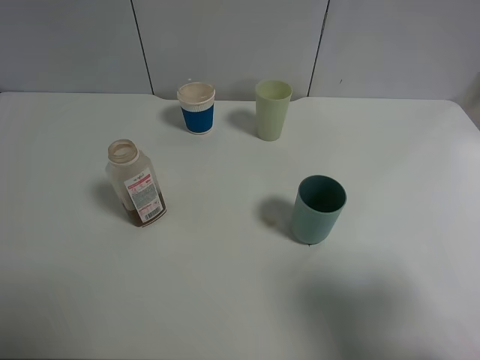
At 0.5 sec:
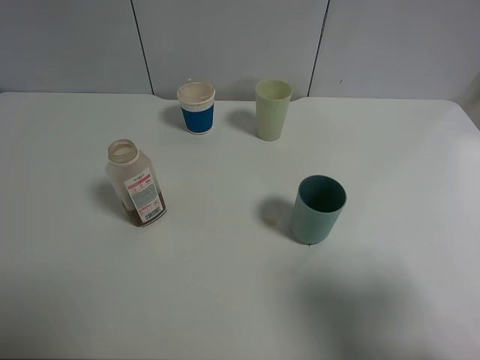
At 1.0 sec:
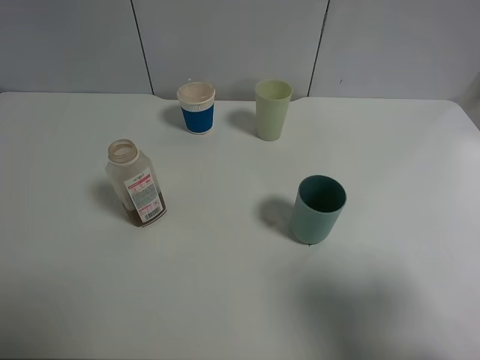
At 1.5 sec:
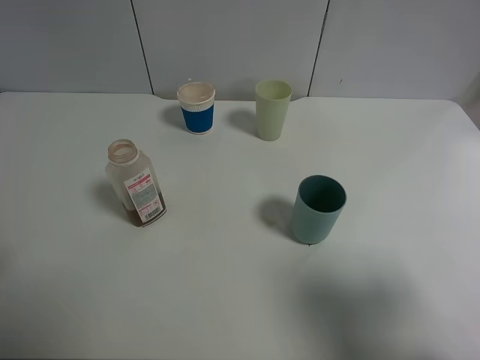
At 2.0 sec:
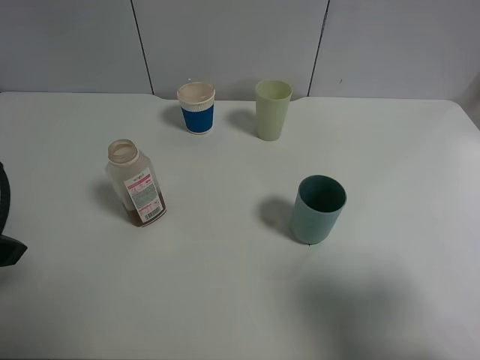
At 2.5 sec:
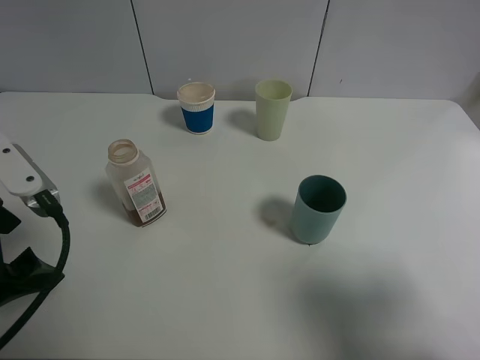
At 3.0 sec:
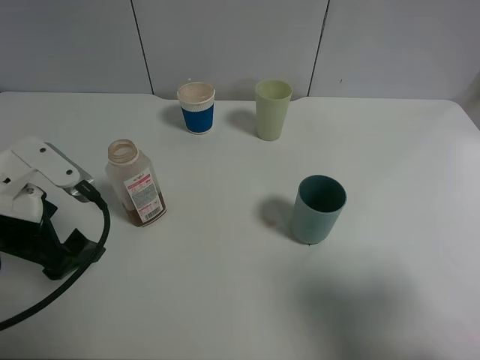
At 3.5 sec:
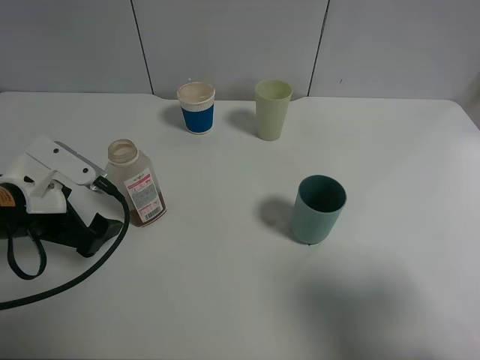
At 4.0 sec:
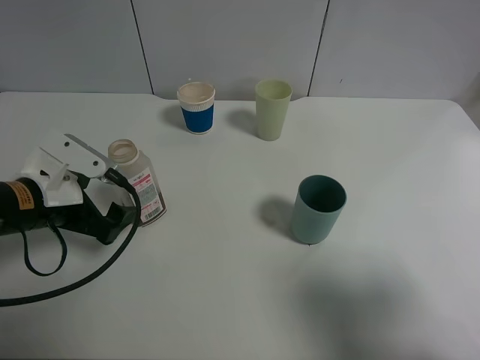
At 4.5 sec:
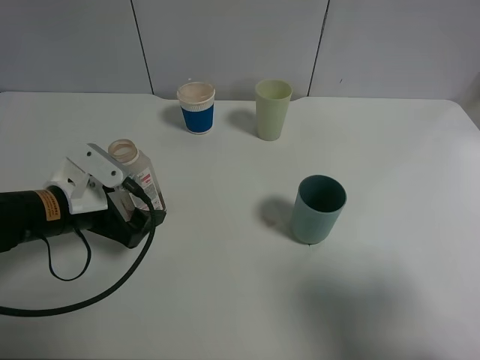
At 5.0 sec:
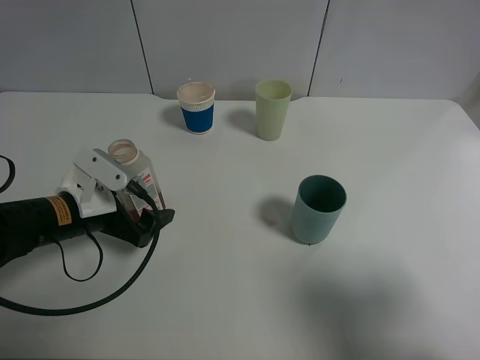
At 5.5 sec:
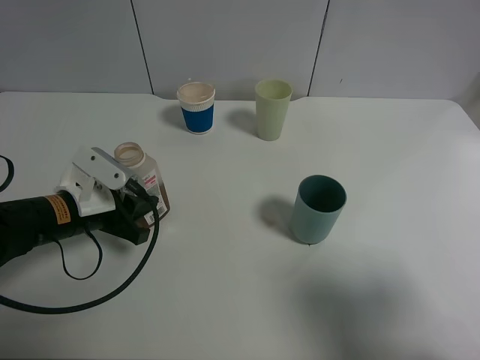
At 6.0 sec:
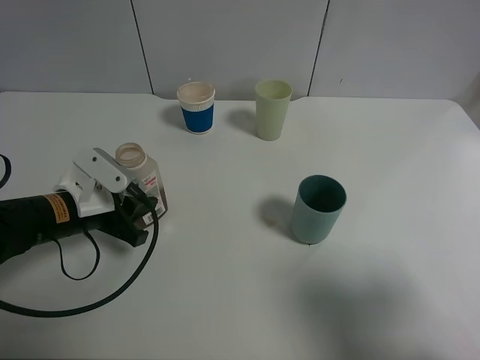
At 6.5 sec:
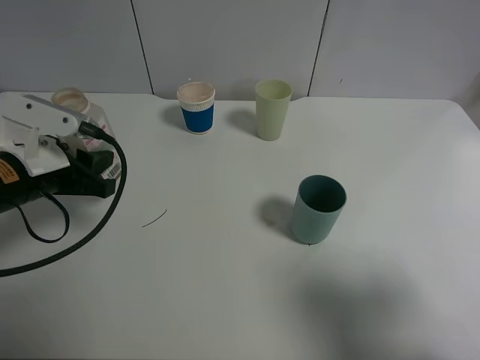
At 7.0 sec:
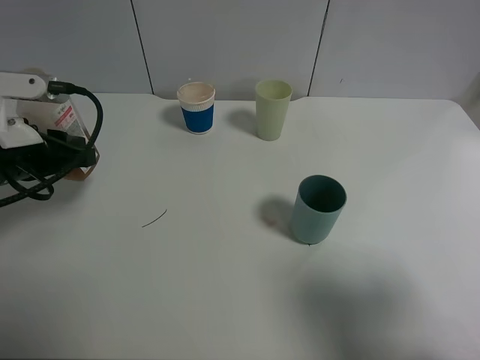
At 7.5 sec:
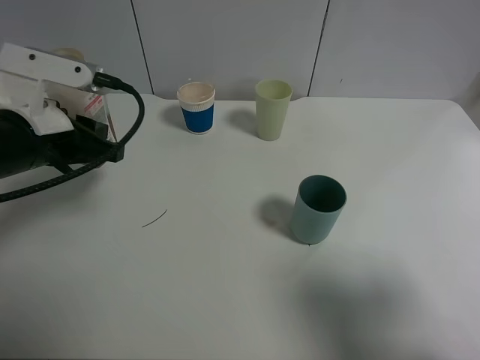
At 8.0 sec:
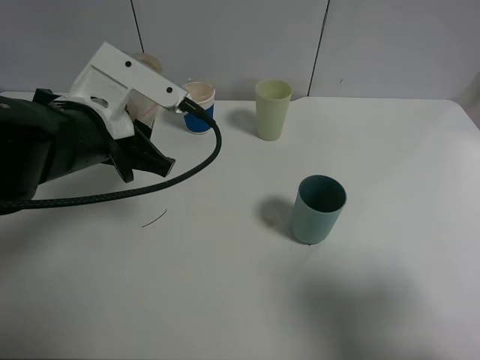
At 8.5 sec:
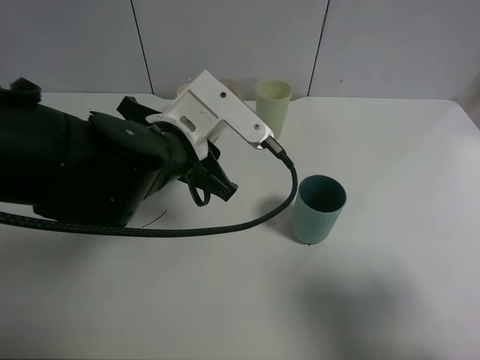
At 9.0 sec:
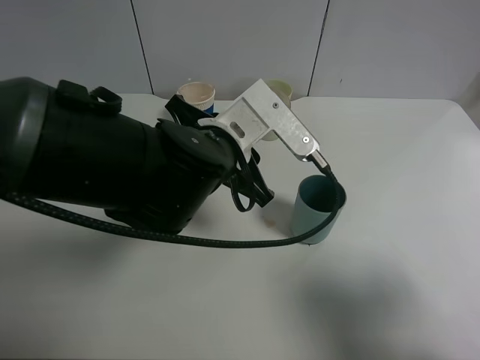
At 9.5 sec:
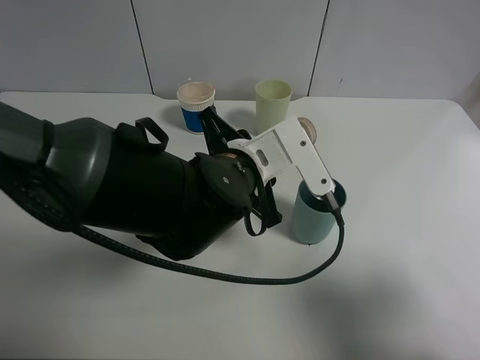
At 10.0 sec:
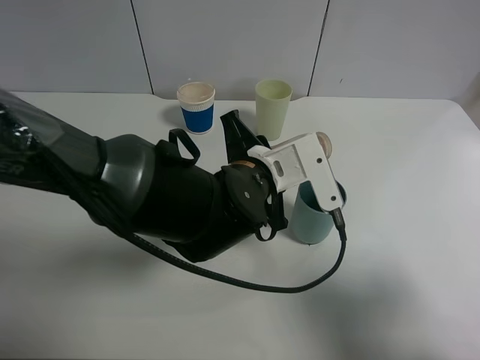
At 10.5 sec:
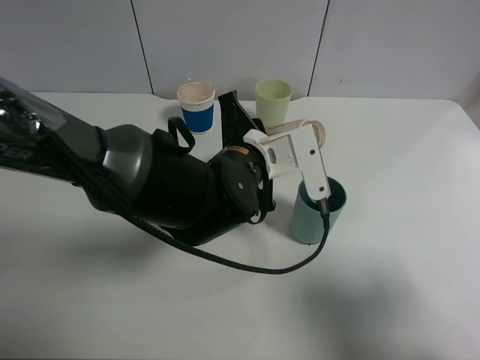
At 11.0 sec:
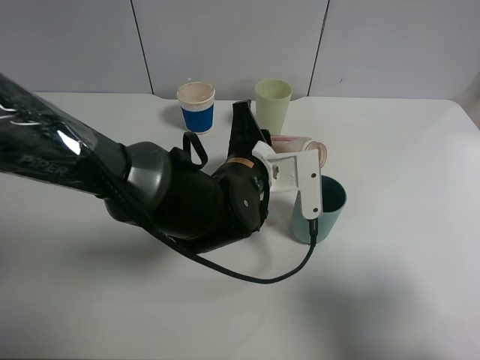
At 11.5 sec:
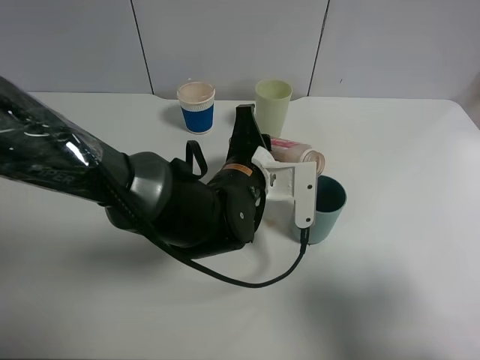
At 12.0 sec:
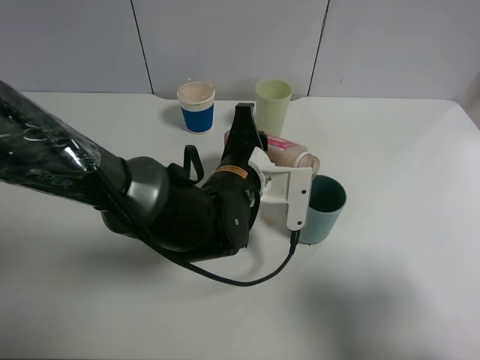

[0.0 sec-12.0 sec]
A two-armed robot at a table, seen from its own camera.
Task of the whole recording: use a clamp to hold the bottle of the drink, pour the beverage into a random cup, then clamp the cup containing the drink and pour the drink into another random cup.
Step, 0.0 sec to 6.0 sec: Pick up the drink bottle with left gripper.
0.0 sec to 2.0 sec: The left gripper goes roughly 15 cm forward.
2.0 sec to 4.0 sec: The left gripper is displaced downward and forward by about 15 cm.
4.0 sec to 6.0 sec: The left gripper closes its fingers.
6.0 sec to 8.0 sec: The left gripper moves upward and to the right, about 15 cm.
8.0 sec to 10.0 sec: The left gripper shifts roughly 15 cm to the right and downward.

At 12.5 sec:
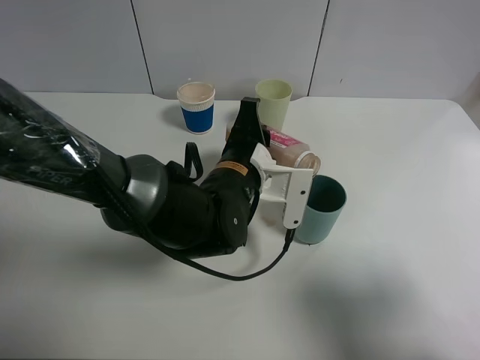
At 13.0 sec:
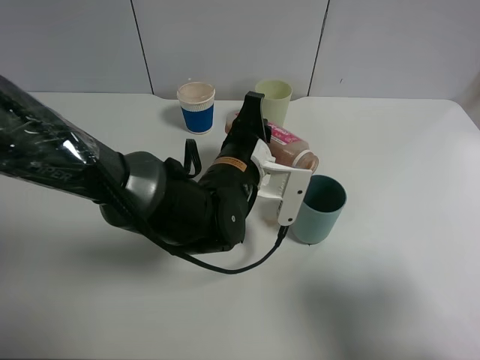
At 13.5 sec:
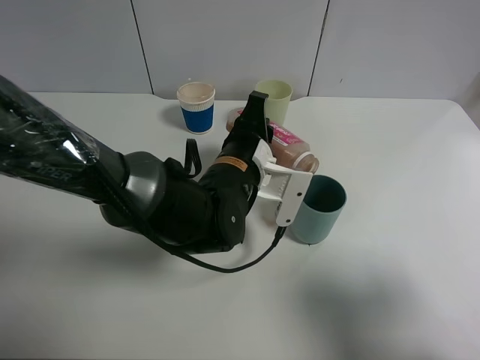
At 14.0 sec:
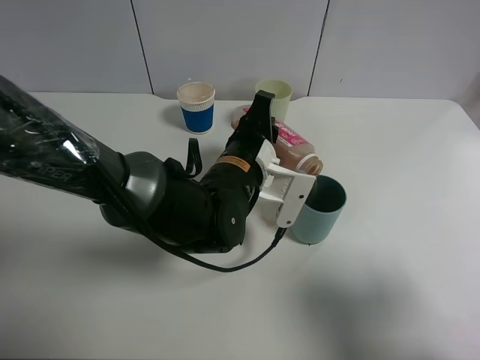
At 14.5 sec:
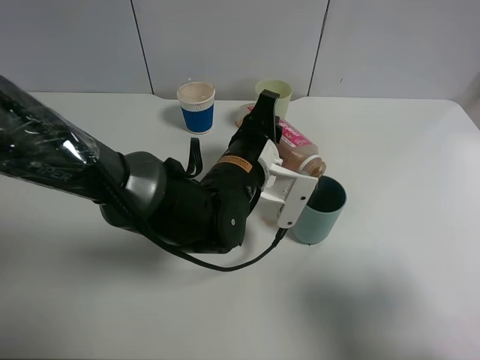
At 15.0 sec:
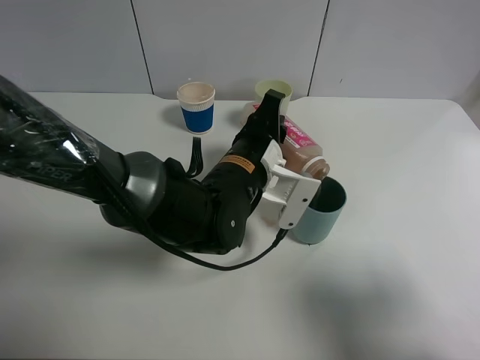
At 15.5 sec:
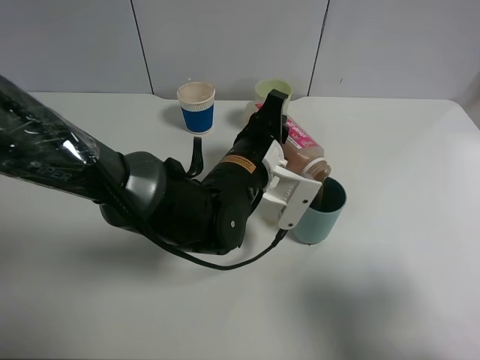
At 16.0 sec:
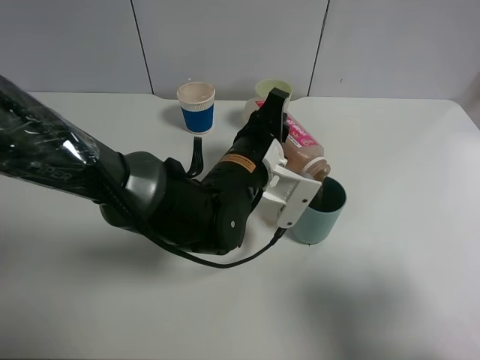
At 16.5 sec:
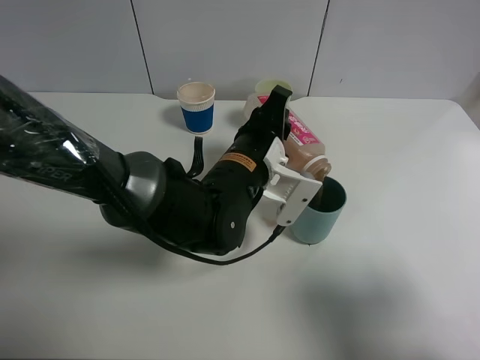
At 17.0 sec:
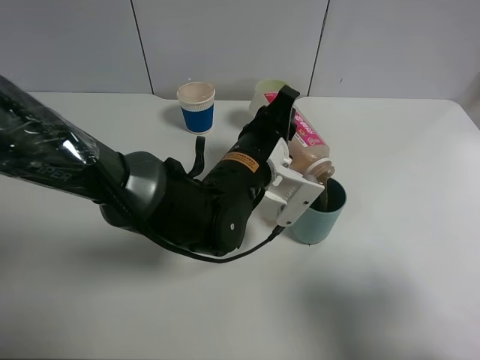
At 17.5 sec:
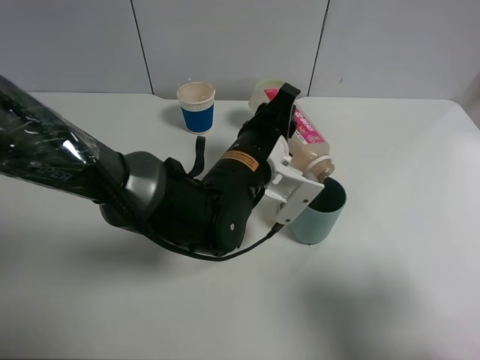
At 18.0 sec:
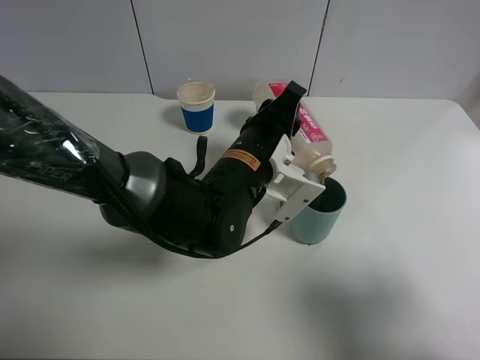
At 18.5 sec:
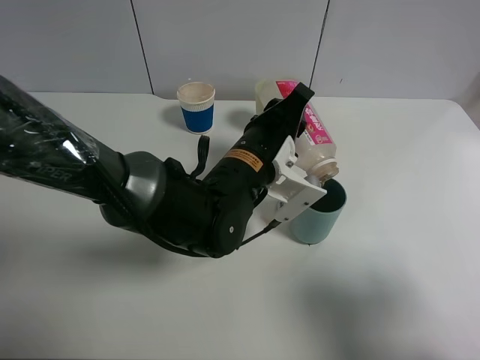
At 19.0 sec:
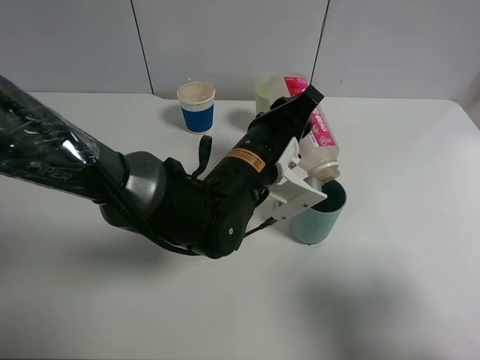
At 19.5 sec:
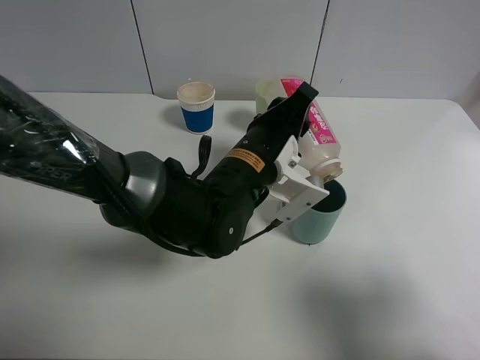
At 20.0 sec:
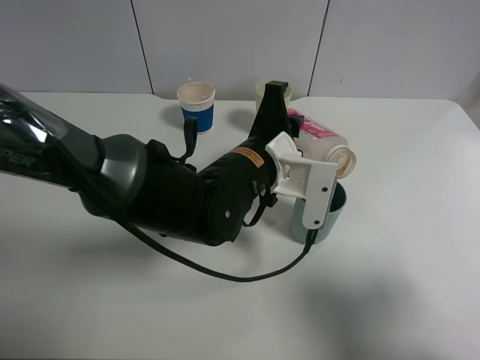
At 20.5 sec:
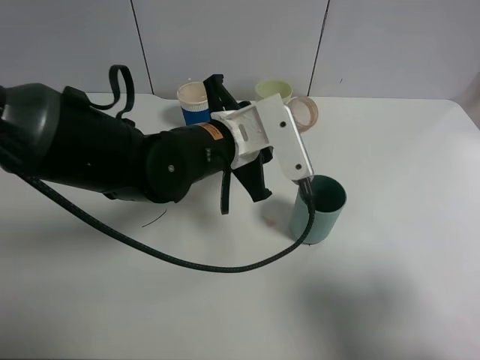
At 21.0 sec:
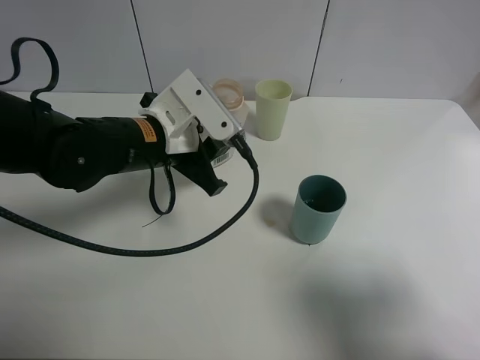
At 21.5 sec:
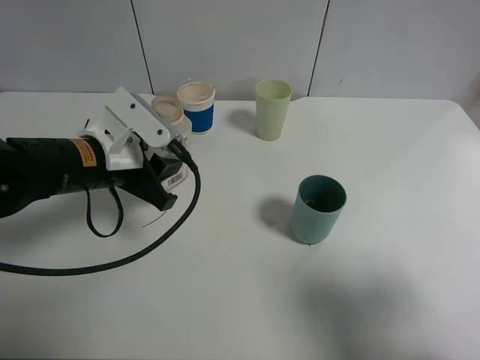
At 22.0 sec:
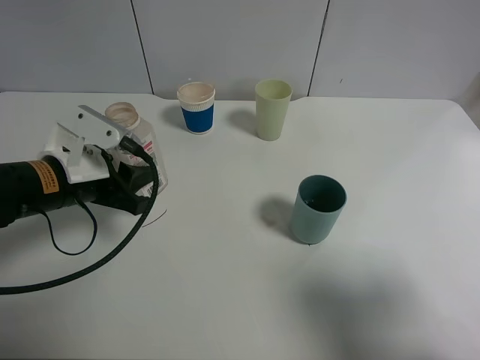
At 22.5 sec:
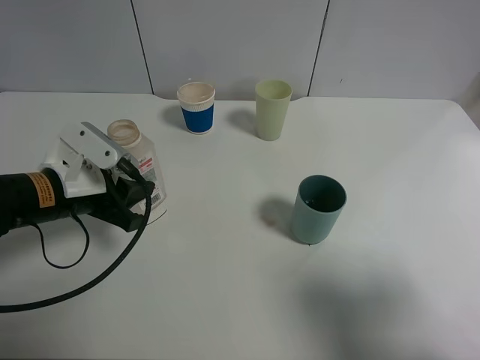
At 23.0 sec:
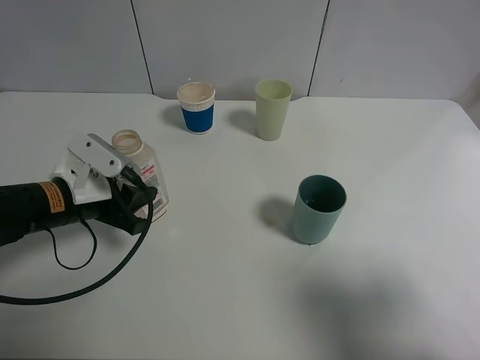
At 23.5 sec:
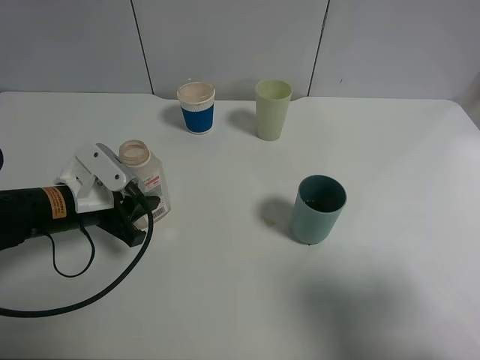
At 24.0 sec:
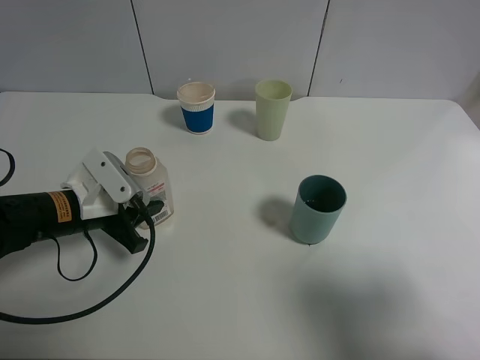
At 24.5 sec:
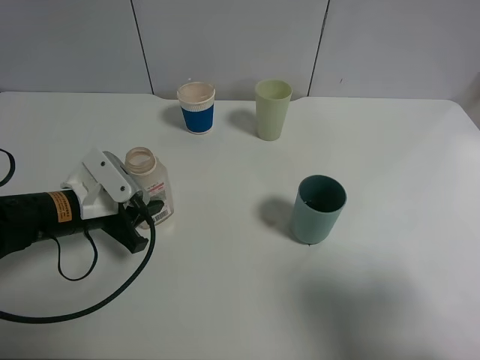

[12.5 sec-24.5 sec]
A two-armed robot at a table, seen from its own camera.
Task of the whole recording: use a clamp to hold the bottle of the drink, pour the beverage into a random cup, then clamp the cup containing the drink and pour the drink into another random cup.
Step, 12.5 sec to 19.5 sec: Pour the drink into the blue plastic cup with left gripper.
12.5 sec to 14.5 sec: The grippers stay close to where they were, moving slightly.
14.5 sec to 18.5 sec: There are only small adjustments of the grippers.
18.5 sec to 20.5 sec: The left gripper shifts by some 5 cm.
20.5 sec to 22.5 sec: The left gripper is displaced to the left by some 15 cm.
22.5 sec to 24.5 sec: There are only small adjustments of the grippers.

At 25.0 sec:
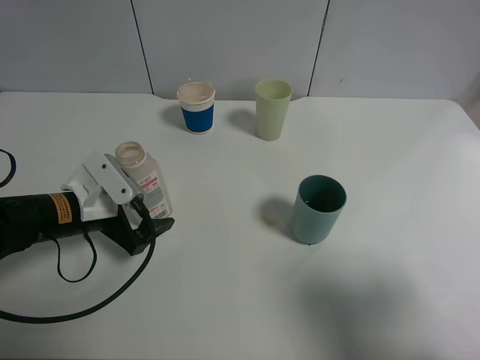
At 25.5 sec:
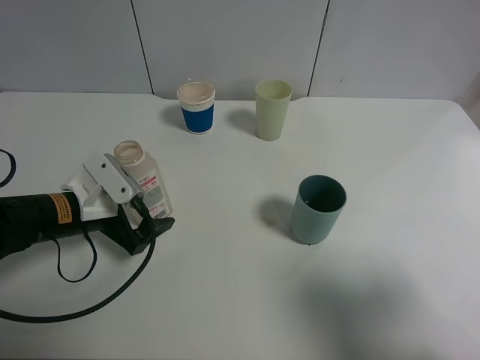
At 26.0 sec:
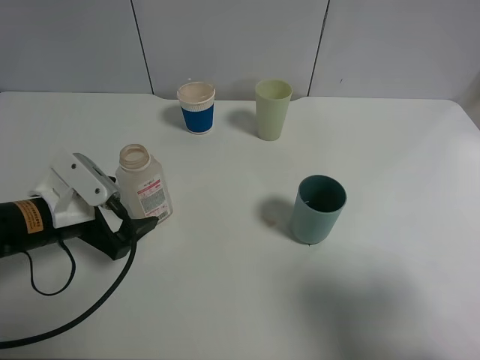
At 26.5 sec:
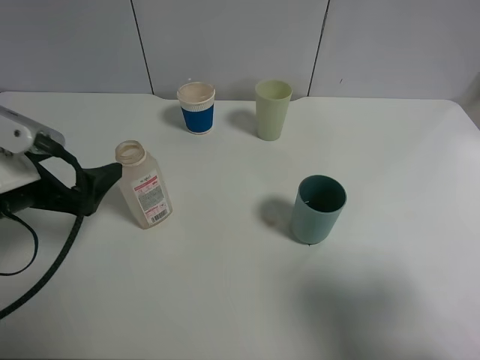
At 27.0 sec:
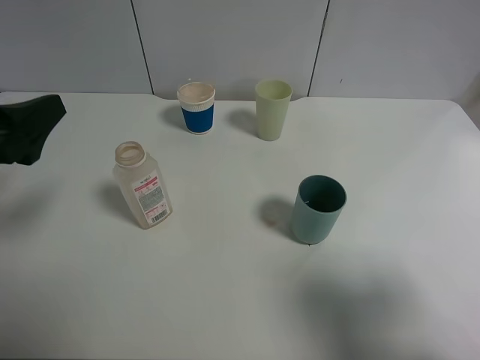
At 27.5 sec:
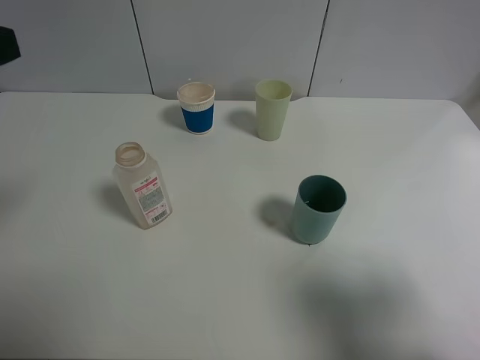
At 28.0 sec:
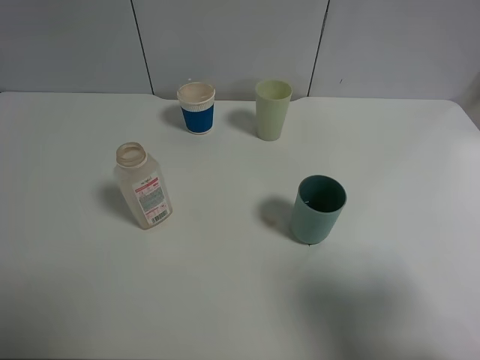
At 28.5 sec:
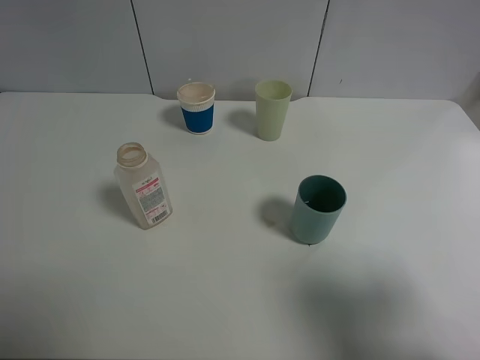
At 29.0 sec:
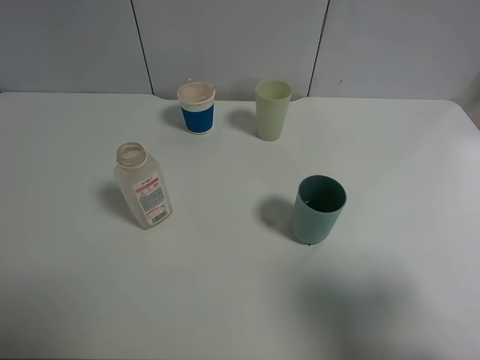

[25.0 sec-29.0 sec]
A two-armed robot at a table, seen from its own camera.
Task of the whole recording: use a clamp to hold the bottle of the drink, pour the beverage into a random cup, then clamp the cup containing the drink and pour the drink into another random cup.
25.0 sec to 27.0 sec: The left gripper goes roughly 15 cm upward and backward.
27.0 sec to 29.0 sec: The left gripper heads backward, covering about 15 cm.
